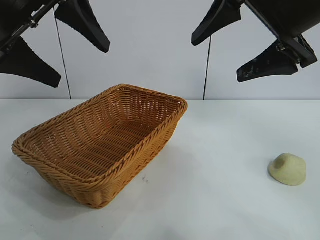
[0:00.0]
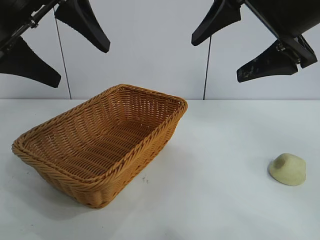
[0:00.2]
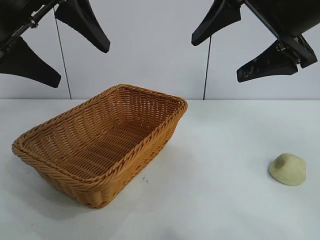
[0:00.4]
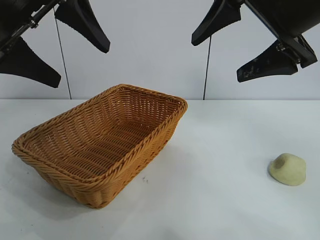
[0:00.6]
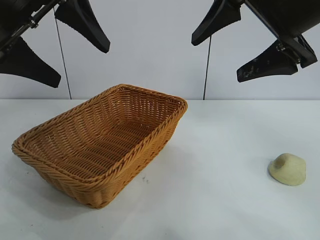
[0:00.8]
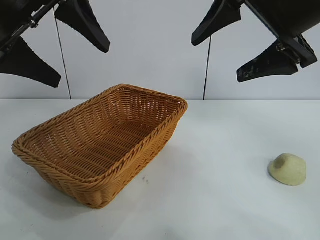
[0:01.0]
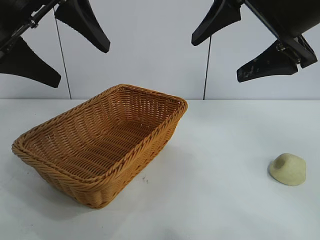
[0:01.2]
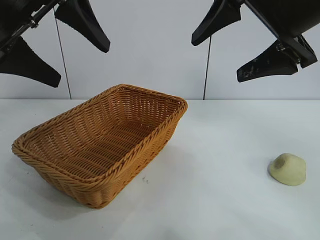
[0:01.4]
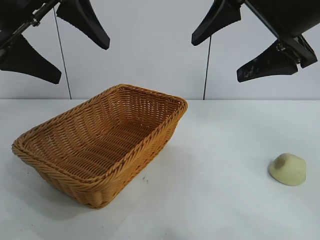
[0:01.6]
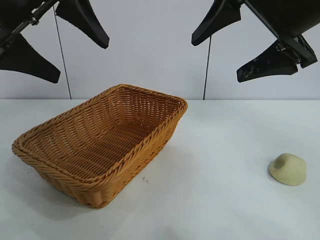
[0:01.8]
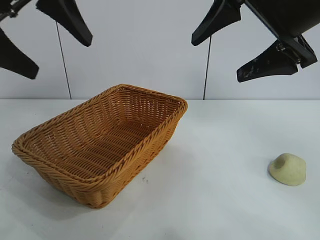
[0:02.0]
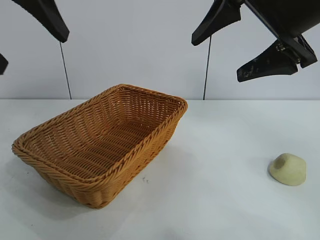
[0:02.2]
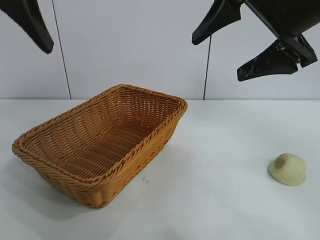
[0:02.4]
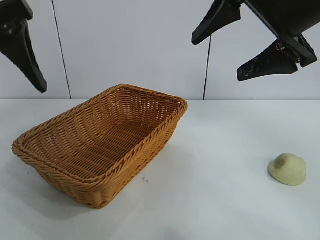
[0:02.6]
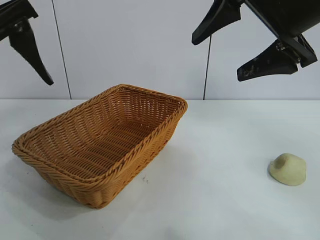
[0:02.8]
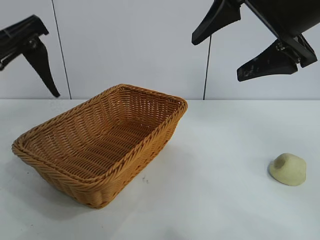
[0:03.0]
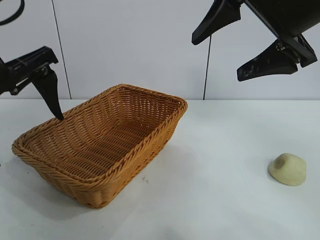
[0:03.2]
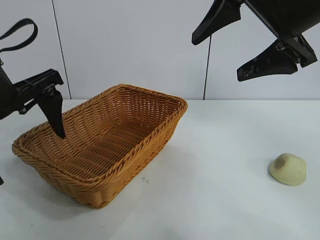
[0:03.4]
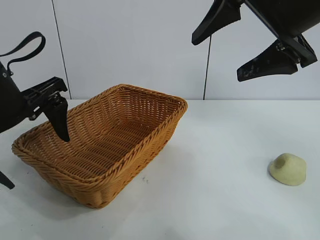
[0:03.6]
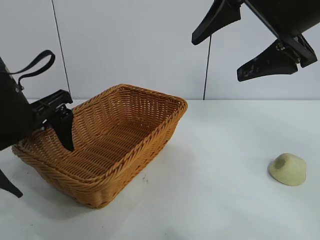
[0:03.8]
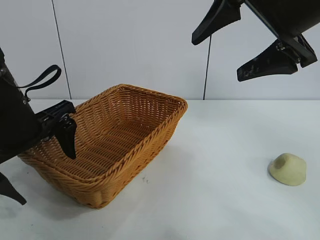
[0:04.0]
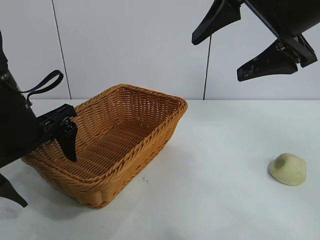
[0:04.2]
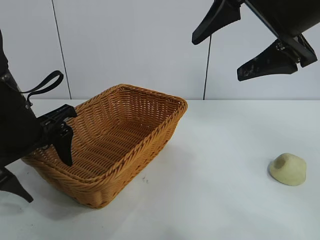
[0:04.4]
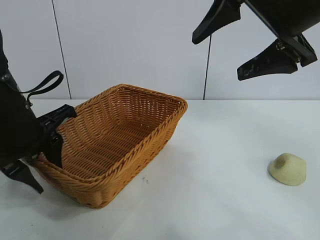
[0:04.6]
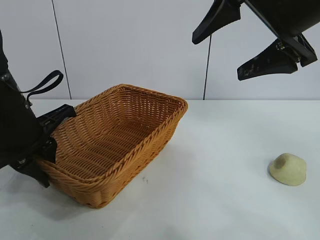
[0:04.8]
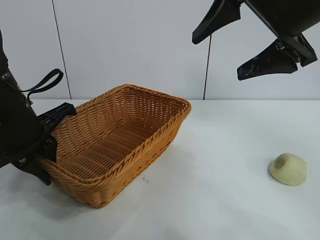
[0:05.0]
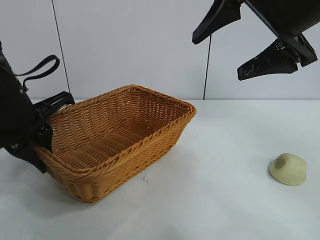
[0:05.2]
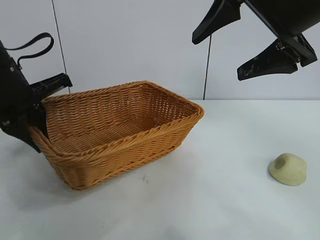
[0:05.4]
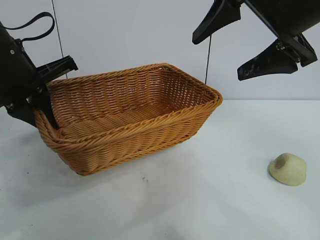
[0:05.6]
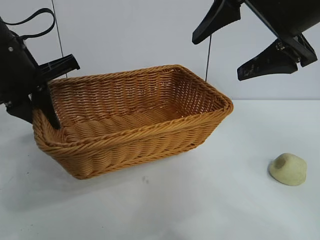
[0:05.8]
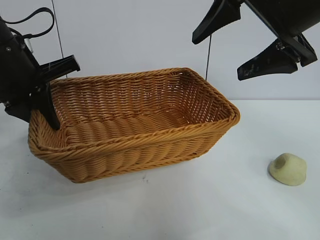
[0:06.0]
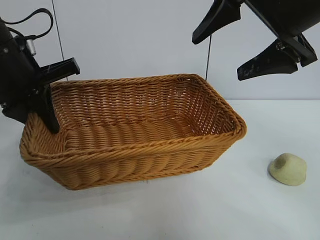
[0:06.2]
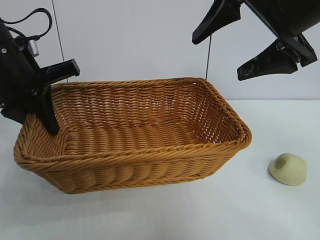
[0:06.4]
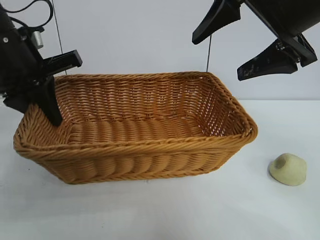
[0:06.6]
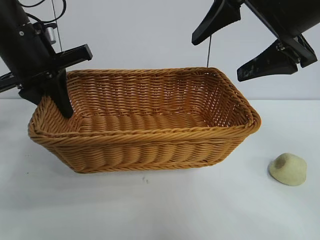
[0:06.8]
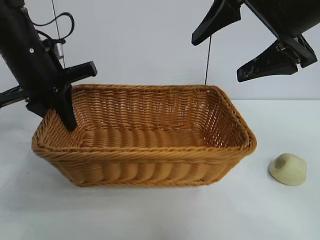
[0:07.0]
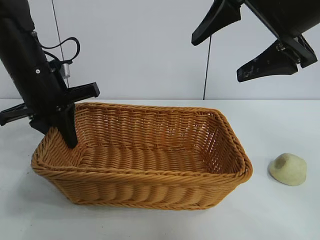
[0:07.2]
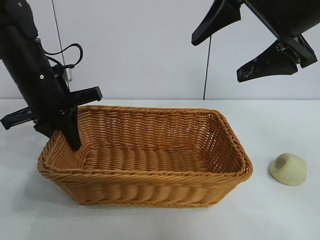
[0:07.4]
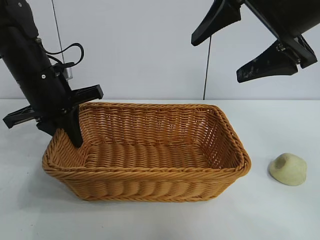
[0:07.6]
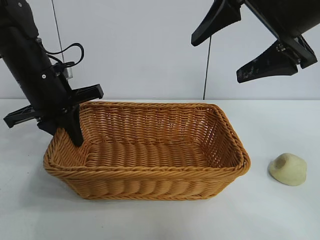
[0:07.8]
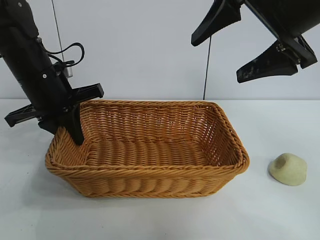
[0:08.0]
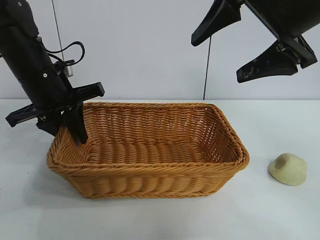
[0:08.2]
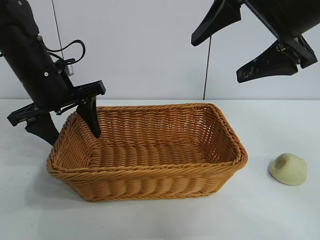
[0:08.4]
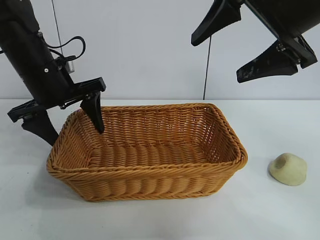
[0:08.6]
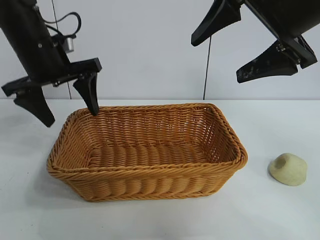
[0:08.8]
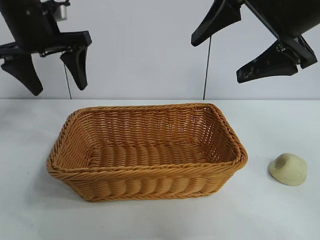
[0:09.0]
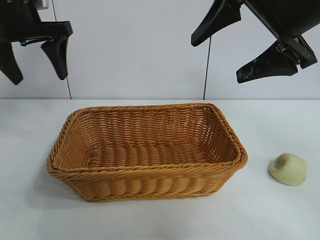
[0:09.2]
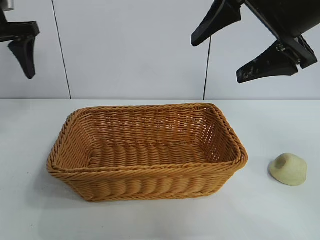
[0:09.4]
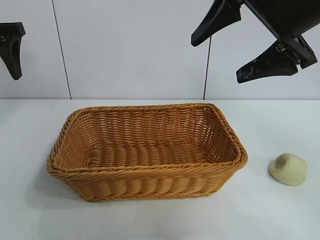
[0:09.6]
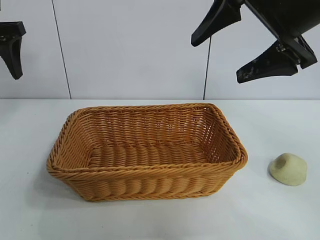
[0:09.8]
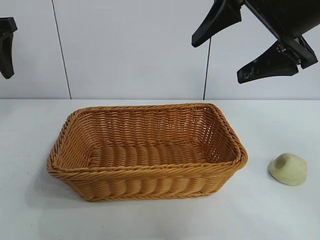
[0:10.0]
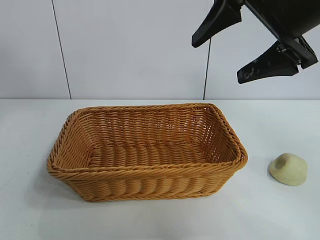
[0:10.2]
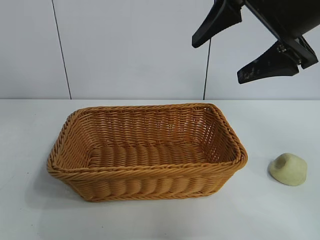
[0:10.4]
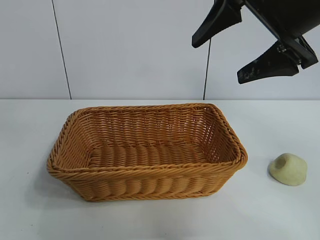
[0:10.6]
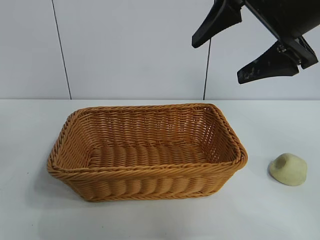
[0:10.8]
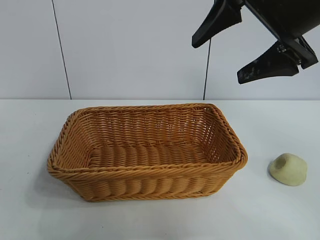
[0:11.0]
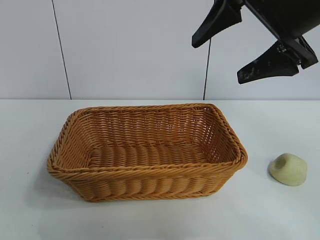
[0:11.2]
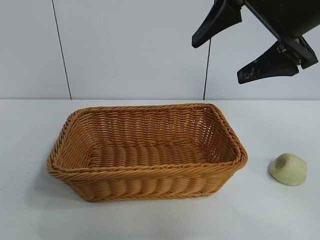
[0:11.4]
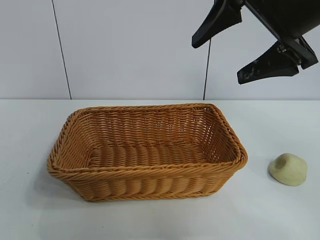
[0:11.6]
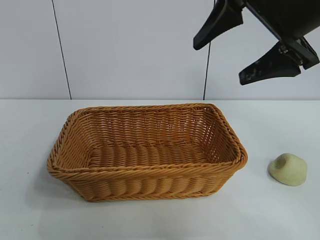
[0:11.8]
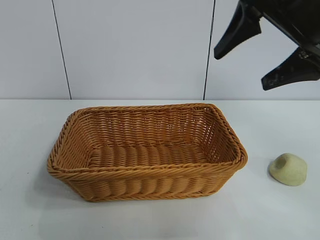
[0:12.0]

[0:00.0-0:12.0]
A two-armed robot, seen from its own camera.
Task of the whole recording: pick up the egg yolk pastry and put it into the basket.
Step, 0:01.4 to 0:04.8: Grasp the basket with left gripper.
Step, 0:05.0 to 0:08.2: Place the basket in the center of view with left gripper.

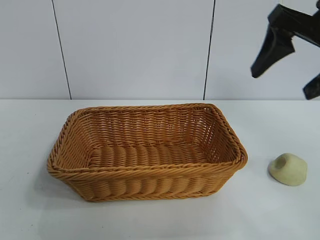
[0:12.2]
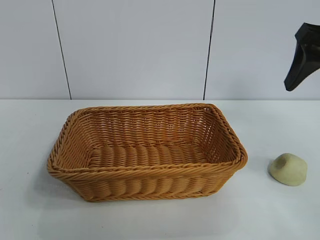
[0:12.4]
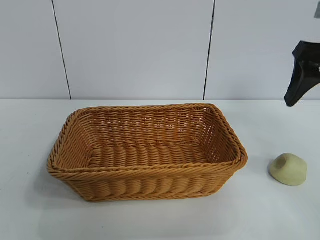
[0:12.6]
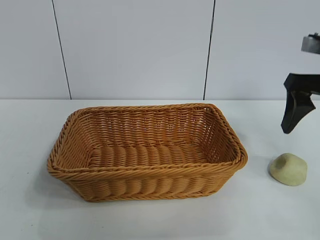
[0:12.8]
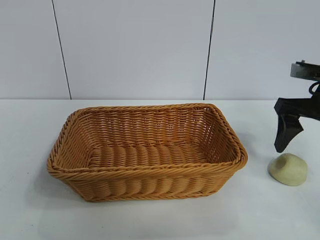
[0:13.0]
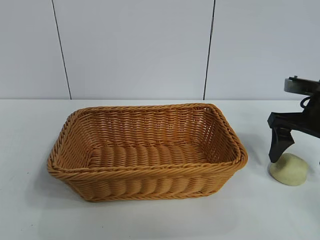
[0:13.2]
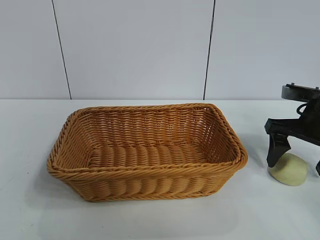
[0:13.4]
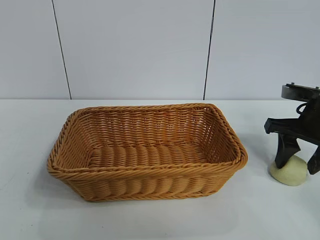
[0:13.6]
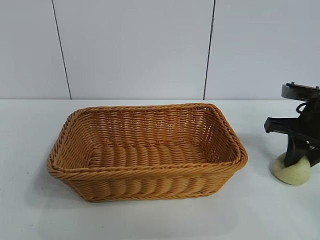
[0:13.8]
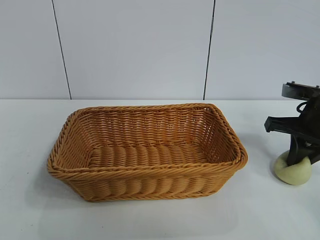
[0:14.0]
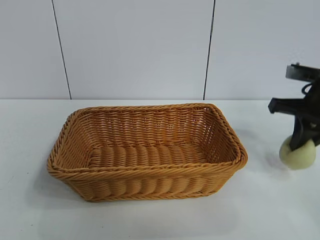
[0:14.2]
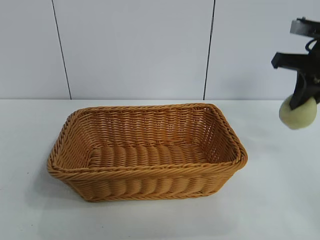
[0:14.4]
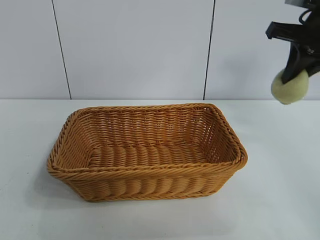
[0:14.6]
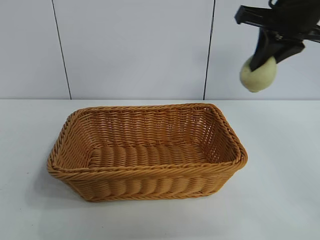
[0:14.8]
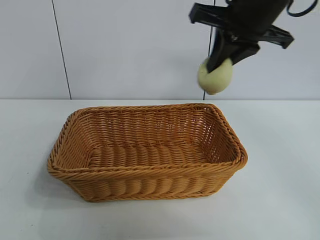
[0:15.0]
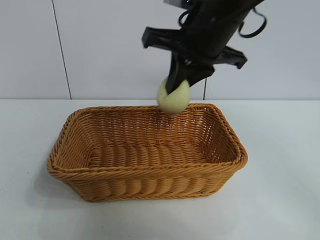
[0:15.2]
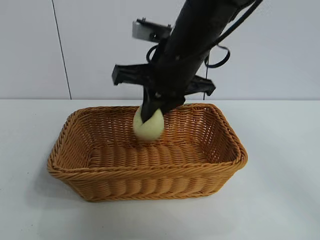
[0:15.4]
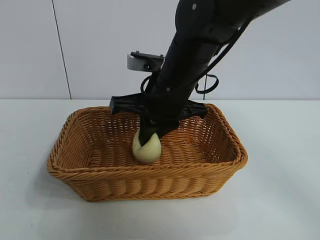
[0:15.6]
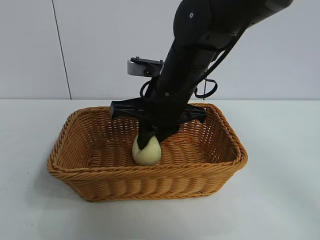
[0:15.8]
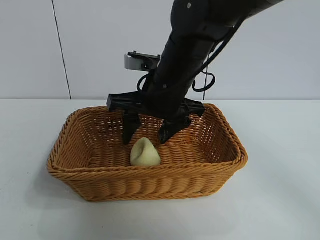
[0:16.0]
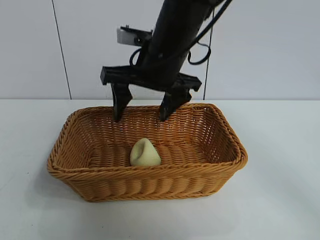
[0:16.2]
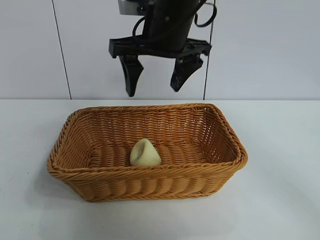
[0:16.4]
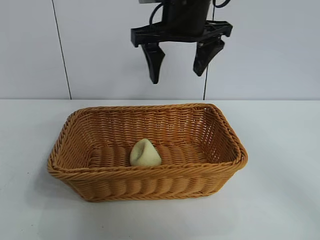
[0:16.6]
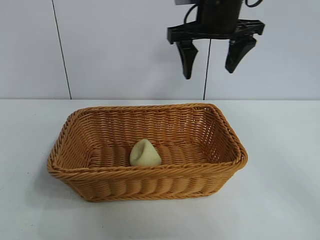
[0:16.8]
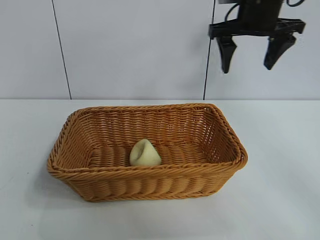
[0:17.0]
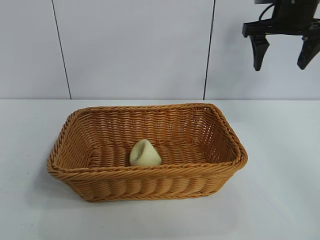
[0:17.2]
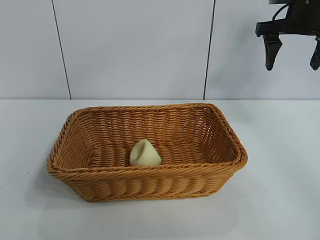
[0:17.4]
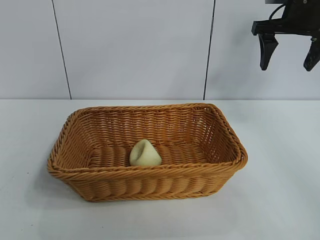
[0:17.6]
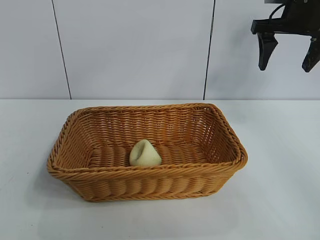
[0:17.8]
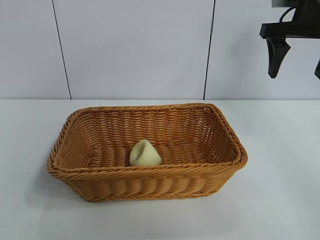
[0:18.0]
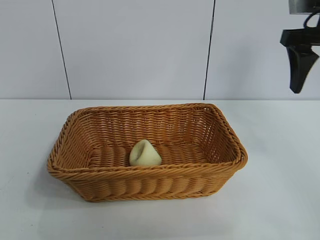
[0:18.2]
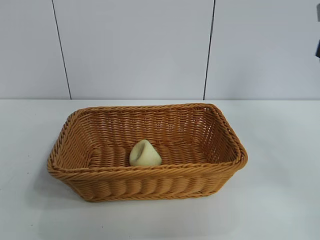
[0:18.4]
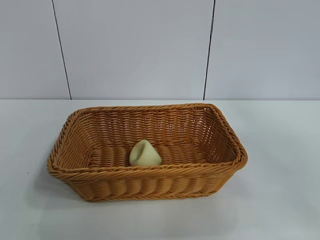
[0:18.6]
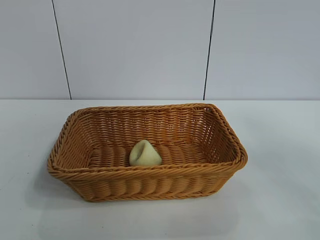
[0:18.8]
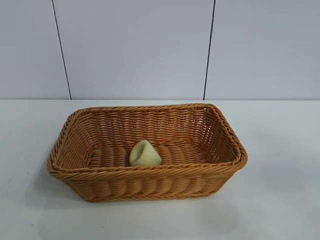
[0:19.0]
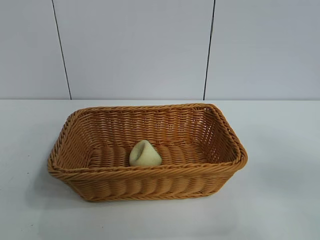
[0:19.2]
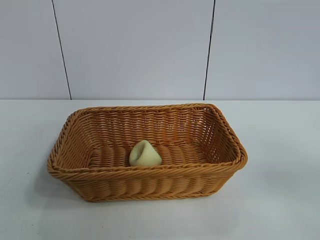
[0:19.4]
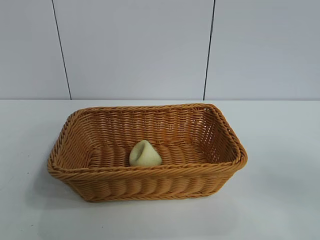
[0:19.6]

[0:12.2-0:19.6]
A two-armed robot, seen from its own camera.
Task of the whole recording: pick up the egg yolk pastry and put it into the basket.
Step, 0:14.0 to 0:16.0: Place the egg yolk pastry in the basket with right gripper.

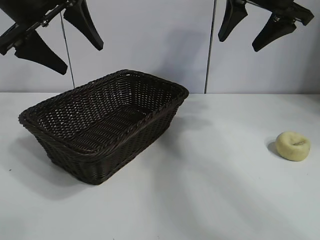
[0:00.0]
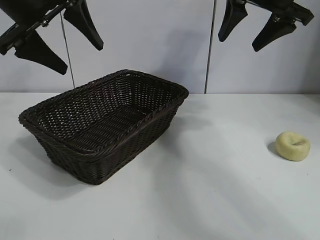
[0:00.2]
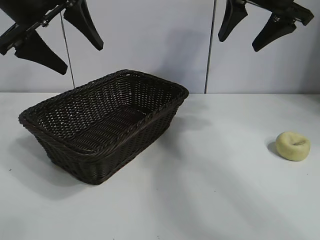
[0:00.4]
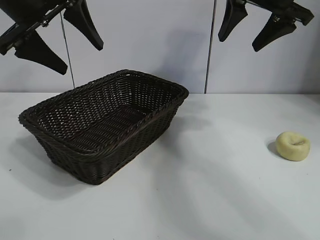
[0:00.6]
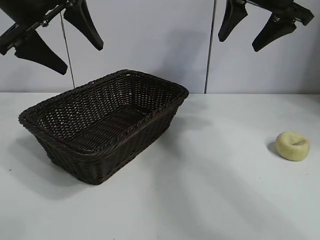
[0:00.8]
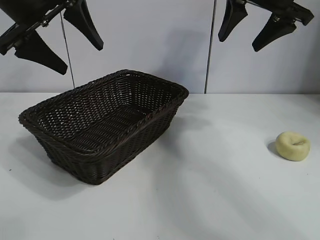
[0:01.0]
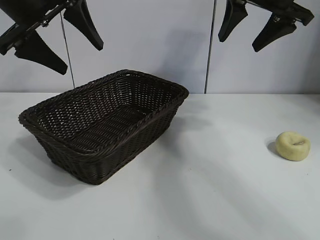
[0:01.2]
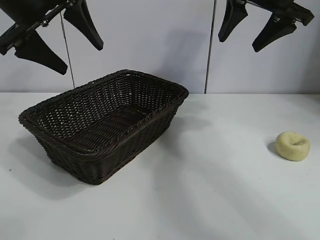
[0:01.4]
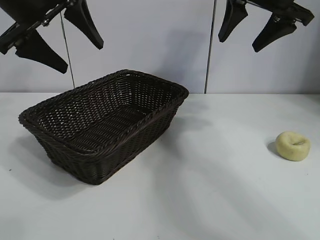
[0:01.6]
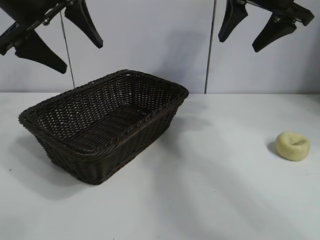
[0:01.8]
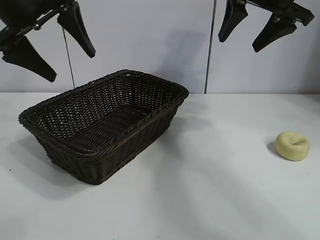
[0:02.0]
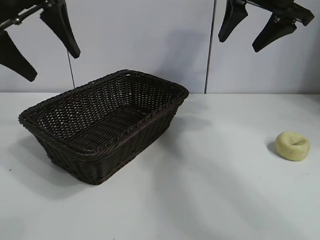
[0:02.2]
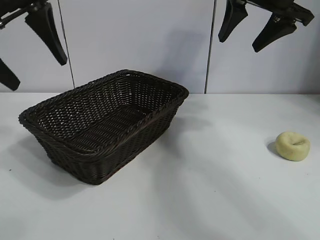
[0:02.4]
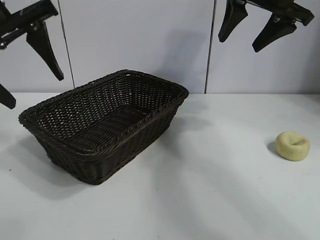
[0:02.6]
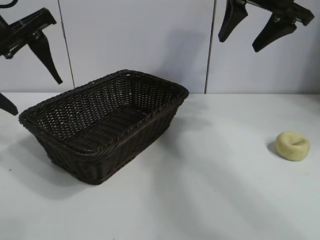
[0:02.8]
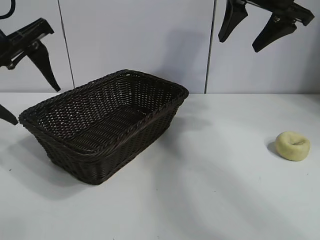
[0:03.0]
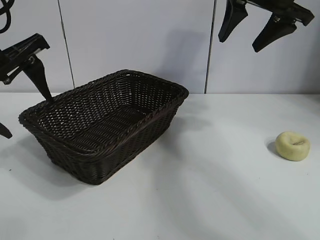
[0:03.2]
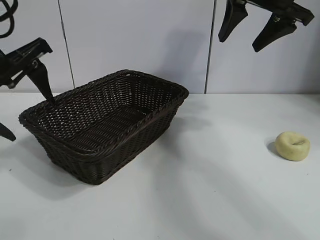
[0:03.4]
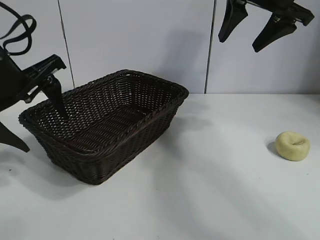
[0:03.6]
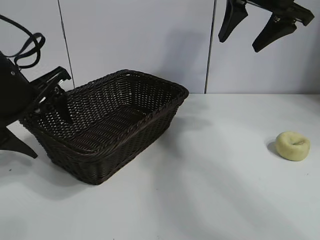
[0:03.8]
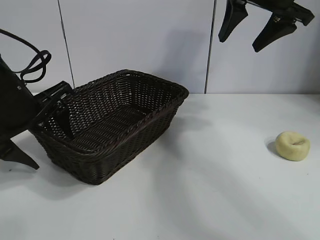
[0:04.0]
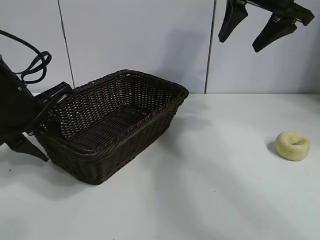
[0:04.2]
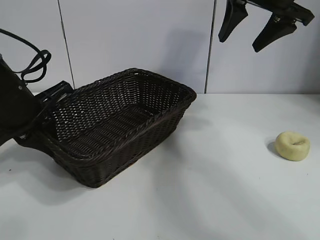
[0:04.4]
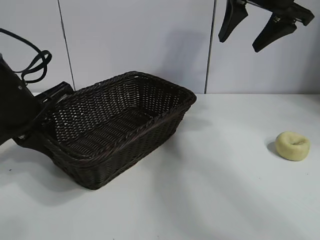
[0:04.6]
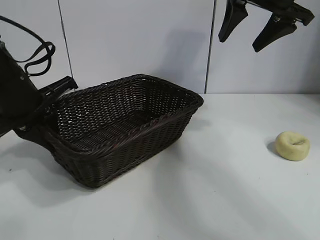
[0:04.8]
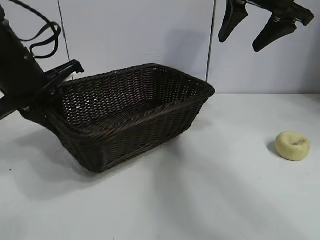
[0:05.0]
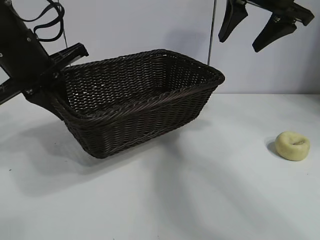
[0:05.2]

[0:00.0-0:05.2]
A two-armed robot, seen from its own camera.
Task of the whole recording: pick up the egg yolk pastry and put it into the basket.
Step, 0:01.6 to 0:04.4: Grasp the basket with left gripper.
